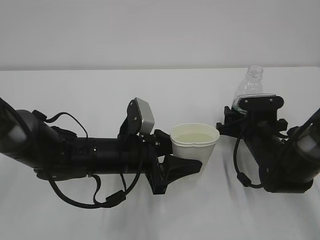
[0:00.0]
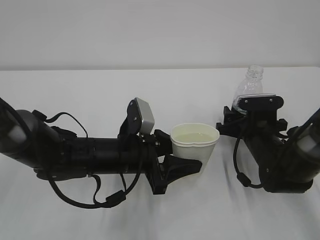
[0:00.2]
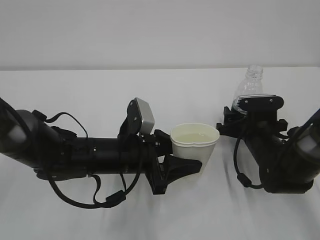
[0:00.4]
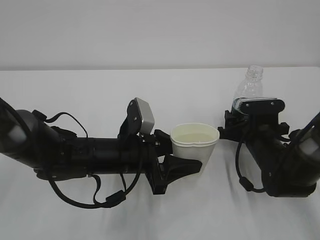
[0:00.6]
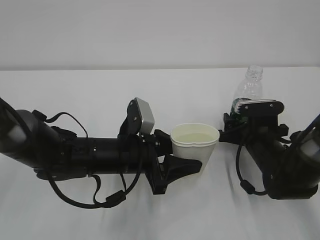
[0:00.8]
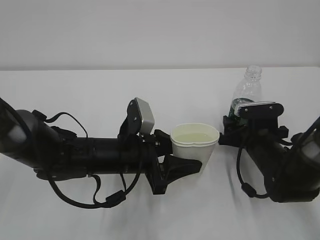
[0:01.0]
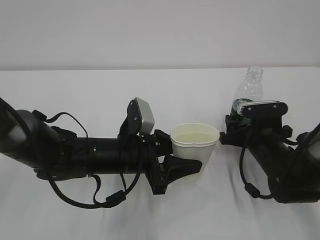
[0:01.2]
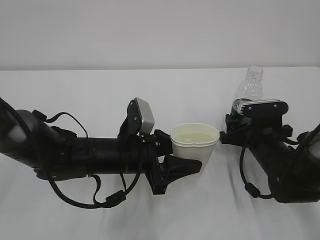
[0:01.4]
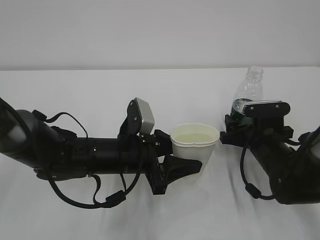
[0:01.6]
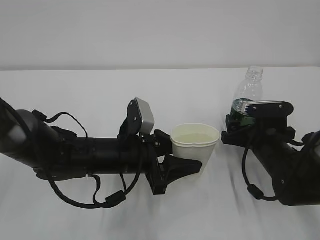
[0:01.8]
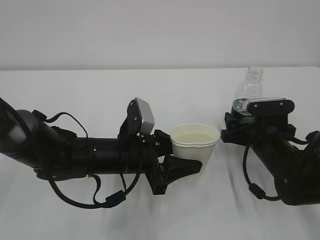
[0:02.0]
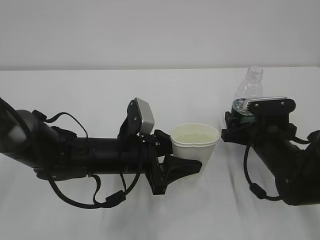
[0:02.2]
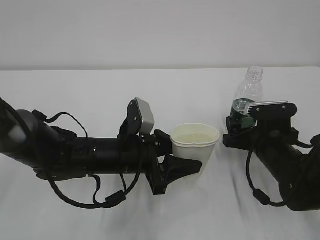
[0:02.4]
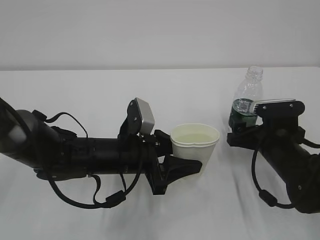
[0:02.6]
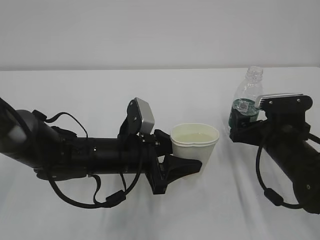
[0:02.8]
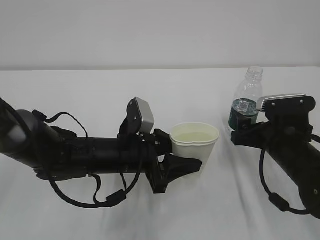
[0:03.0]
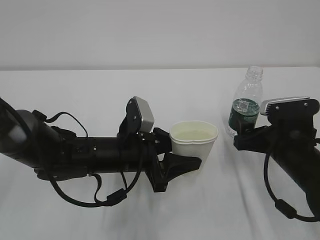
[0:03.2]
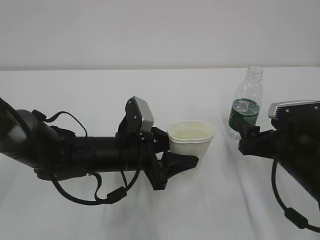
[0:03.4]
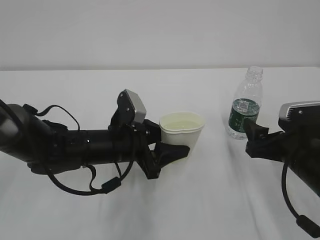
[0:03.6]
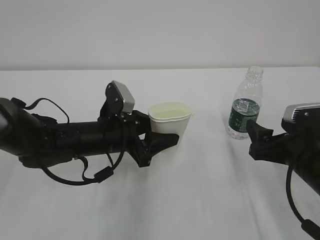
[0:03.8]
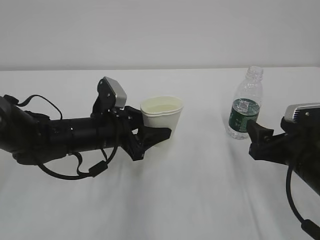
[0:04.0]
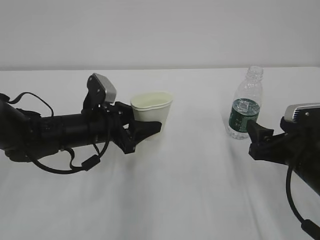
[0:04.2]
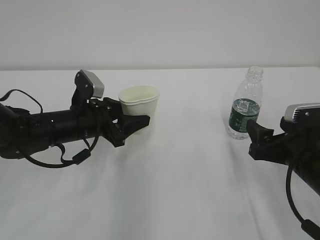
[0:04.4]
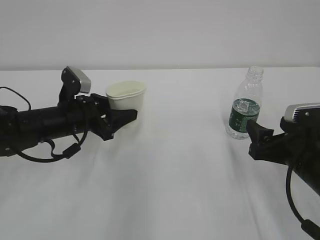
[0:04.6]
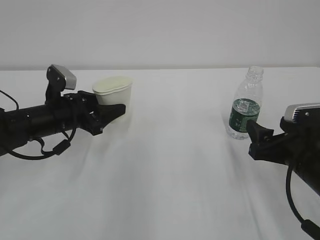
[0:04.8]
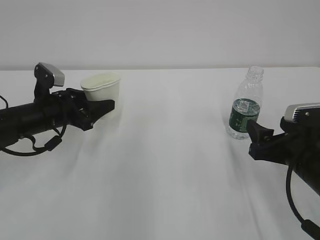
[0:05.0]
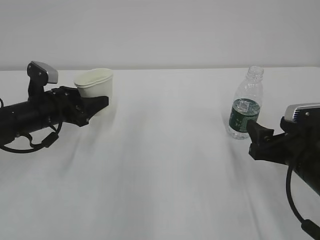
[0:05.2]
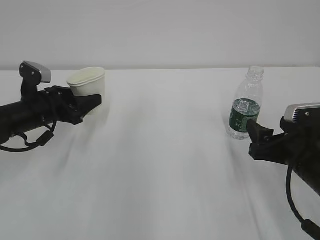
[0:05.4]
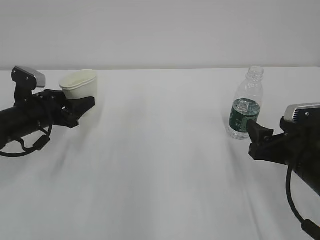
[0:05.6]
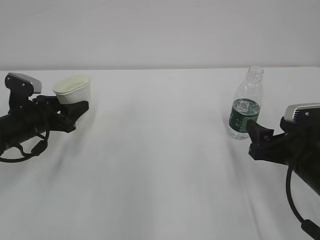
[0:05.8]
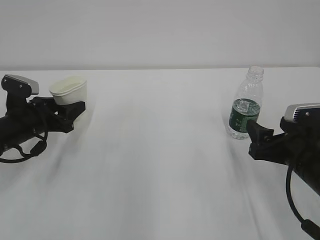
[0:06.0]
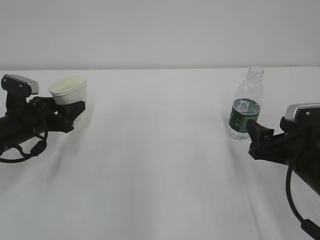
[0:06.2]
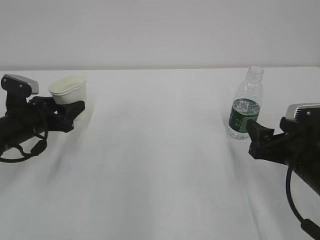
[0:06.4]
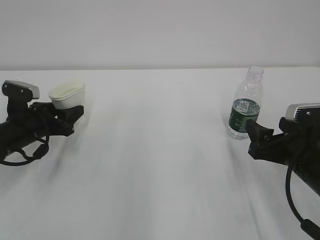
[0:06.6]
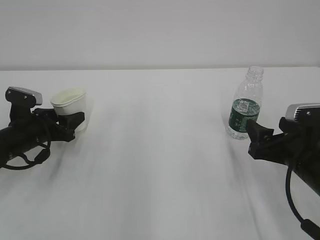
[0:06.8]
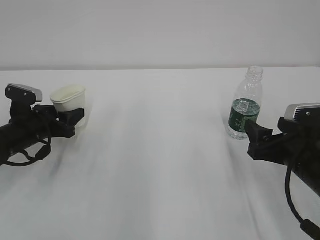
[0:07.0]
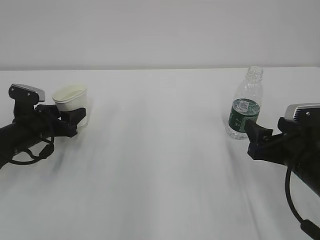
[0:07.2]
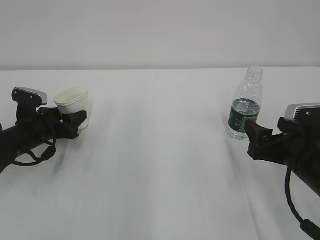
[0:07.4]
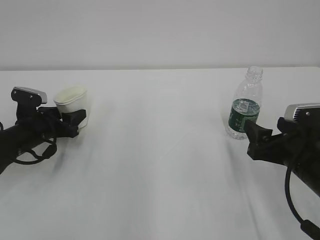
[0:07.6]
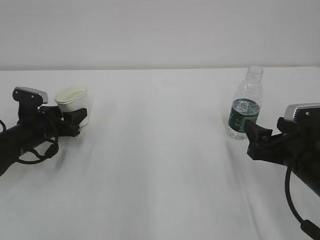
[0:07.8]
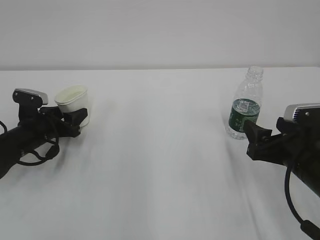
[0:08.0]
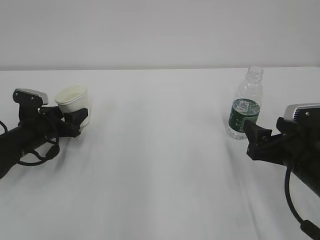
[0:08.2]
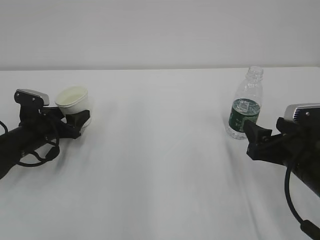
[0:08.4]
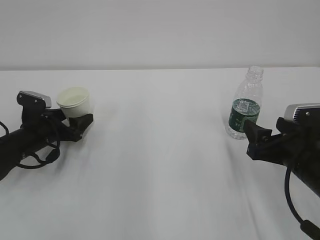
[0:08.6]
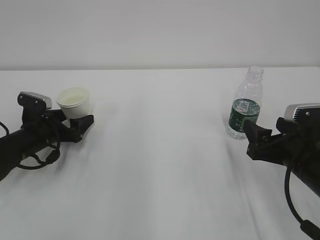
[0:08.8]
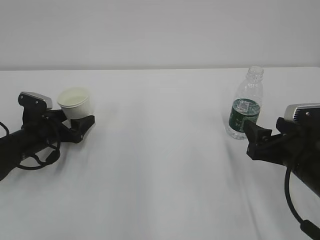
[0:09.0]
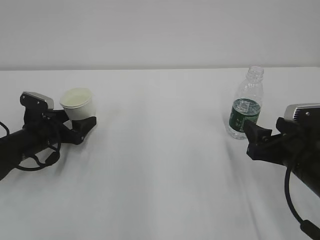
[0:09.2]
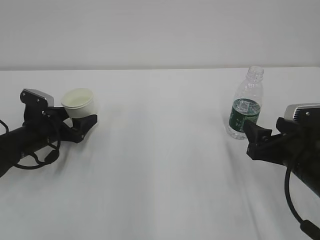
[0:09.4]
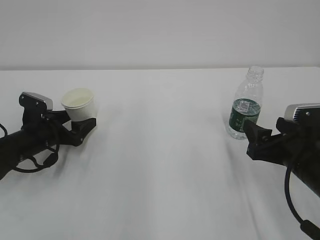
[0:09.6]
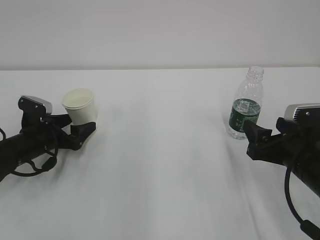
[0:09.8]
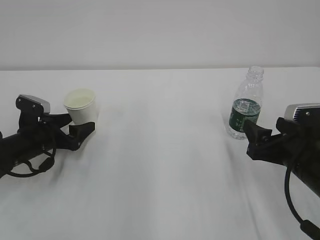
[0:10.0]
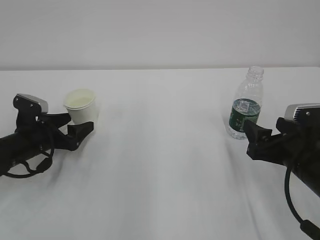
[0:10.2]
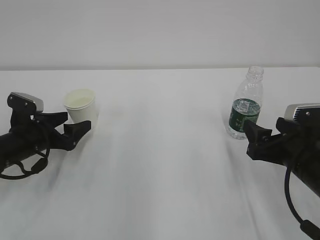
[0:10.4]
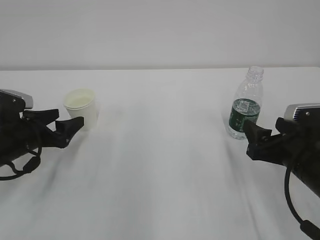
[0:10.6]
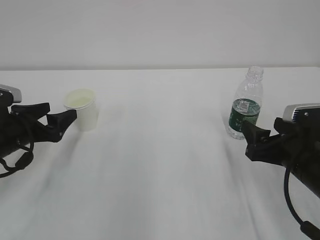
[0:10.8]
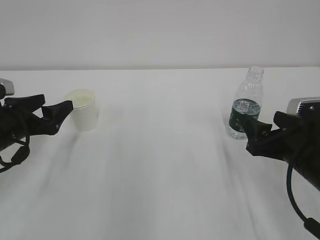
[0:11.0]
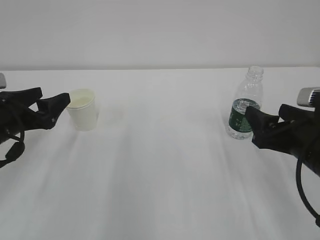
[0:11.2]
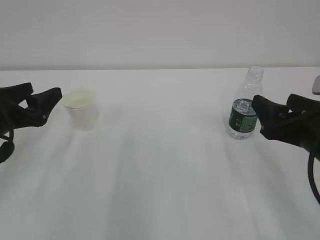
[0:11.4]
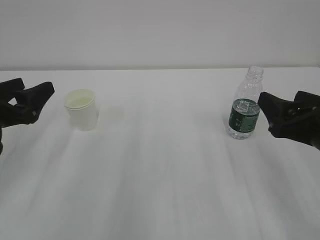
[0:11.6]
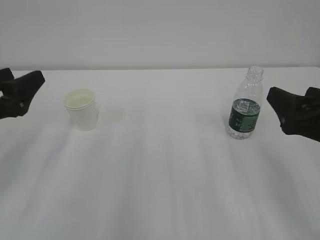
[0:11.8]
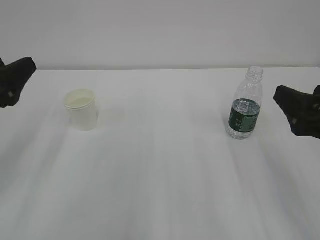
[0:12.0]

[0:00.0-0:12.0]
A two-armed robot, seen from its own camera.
0:00.0 to 0:01.6: The grippers make only small movements.
0:01.6 to 0:03.0: The right gripper moves about 5 cm.
0:03.0 to 0:04.4: The left gripper goes roughly 10 cm to the left and forward. The right gripper ends up some 5 cm from where it was.
0:04.4 to 0:06.0: The left gripper heads to the left, covering some 10 cm.
0:06.0 to 0:07.6: The grippers stay close to where they were, moving slightly.
0:07.6 to 0:09.0: The left gripper opens up.
0:09.0 to 0:10.4: The grippers stay close to where they were, moving slightly.
0:10.4 to 0:12.0: The right gripper moves upward and backward, roughly 10 cm, while the left gripper is displaced upward and backward by approximately 20 cm.

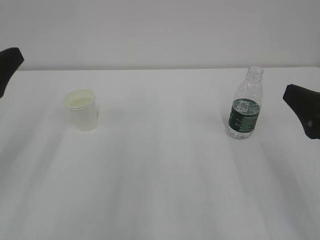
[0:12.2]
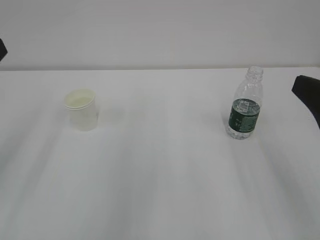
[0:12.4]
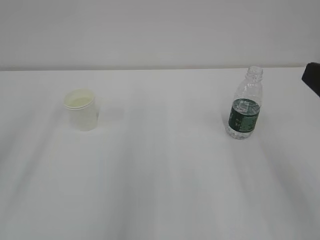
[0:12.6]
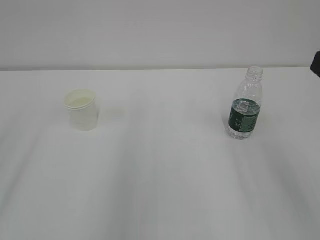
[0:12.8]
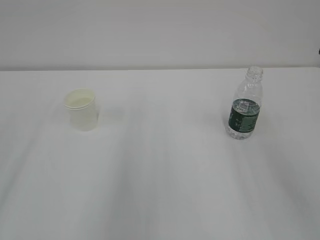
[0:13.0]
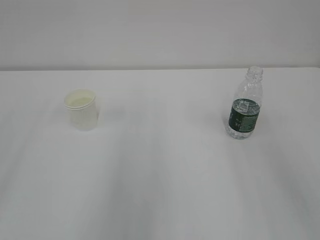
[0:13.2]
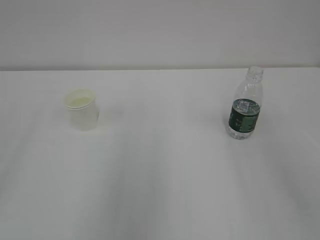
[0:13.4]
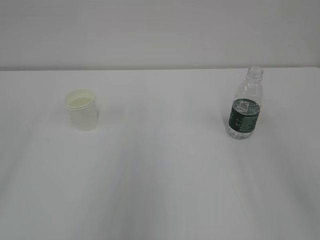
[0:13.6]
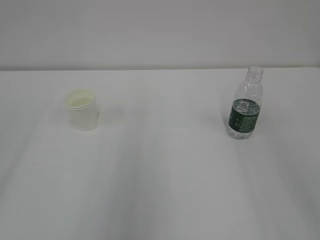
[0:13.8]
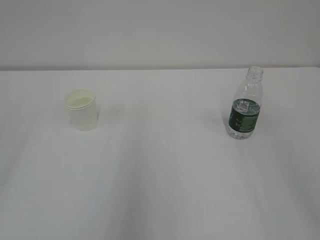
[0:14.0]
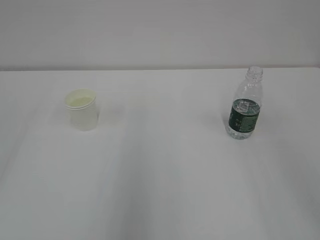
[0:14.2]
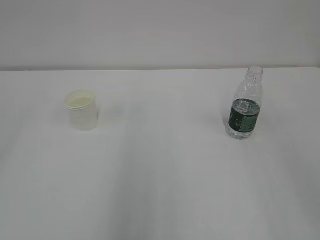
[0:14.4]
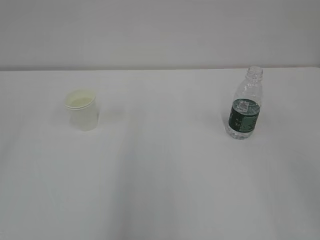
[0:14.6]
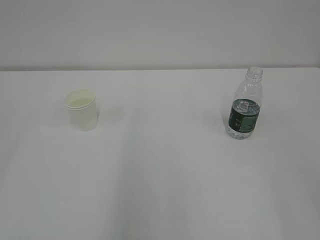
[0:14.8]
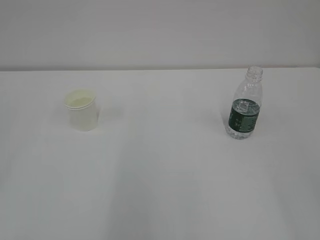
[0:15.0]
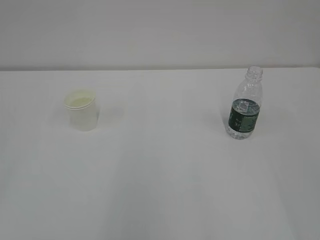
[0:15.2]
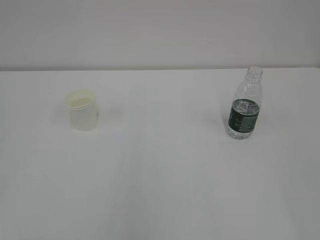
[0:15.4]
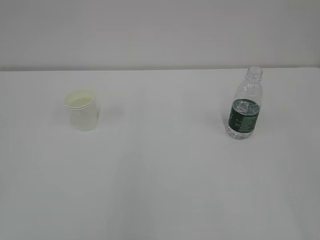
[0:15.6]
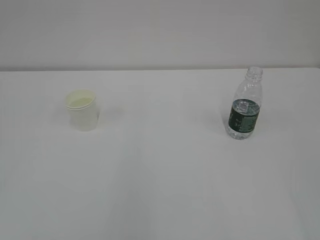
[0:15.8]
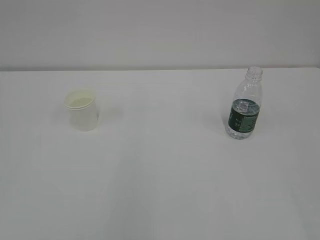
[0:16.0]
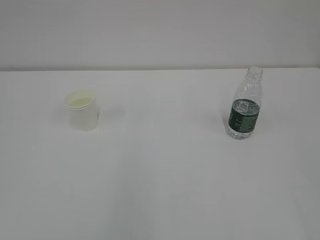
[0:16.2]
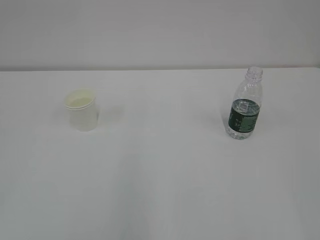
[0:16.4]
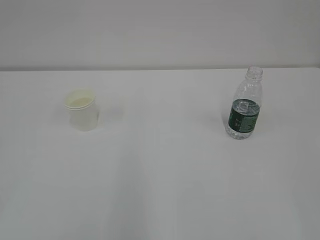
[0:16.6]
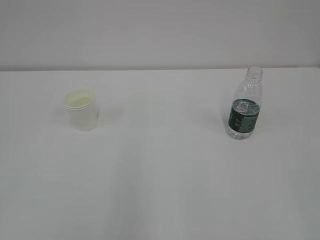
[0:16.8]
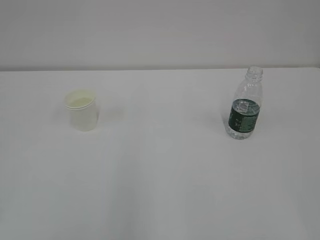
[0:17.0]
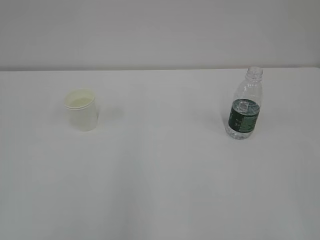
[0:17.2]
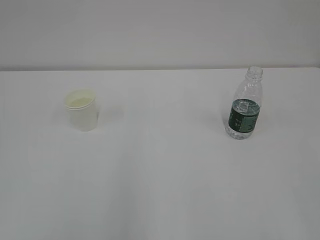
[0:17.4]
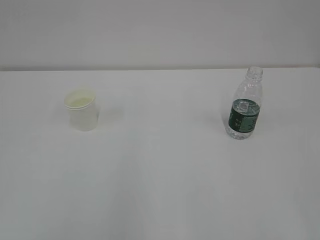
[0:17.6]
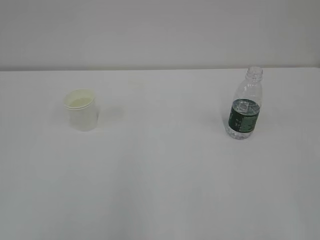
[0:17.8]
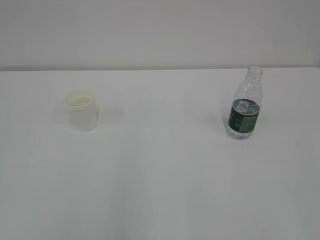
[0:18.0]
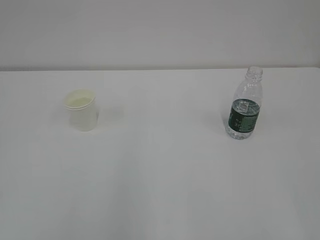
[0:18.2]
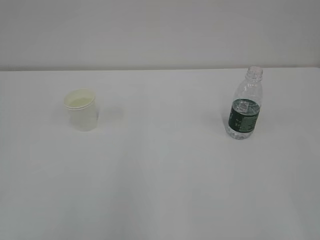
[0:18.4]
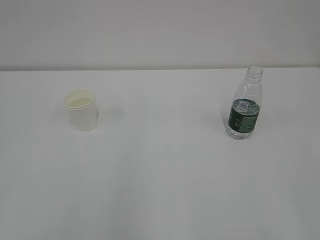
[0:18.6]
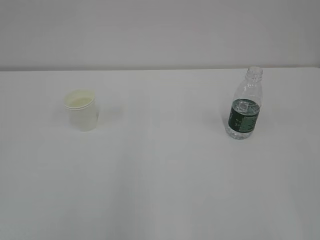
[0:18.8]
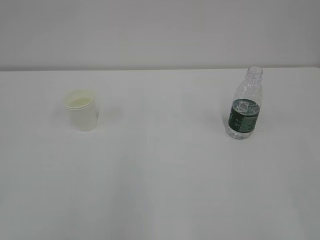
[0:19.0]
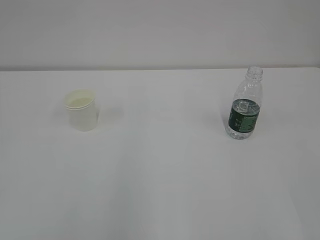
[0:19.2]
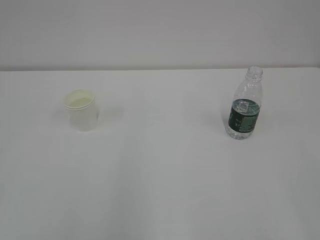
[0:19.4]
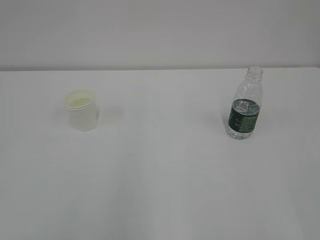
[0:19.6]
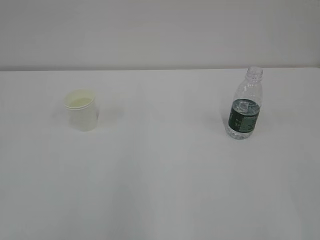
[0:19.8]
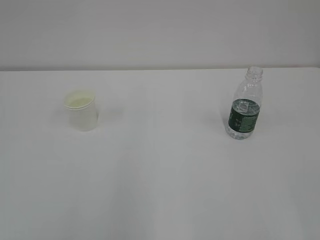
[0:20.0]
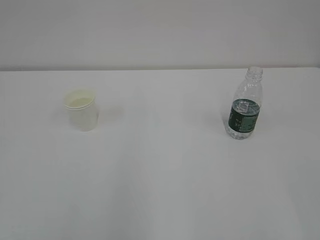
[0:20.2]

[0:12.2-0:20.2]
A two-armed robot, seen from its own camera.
0:12.2 to 0:13.8: The left gripper moves backward and upward, roughly 15 cm, while the right gripper travels upward and backward by about 15 cm.
0:18.6 to 0:20.2: Both grippers stay about where they are.
